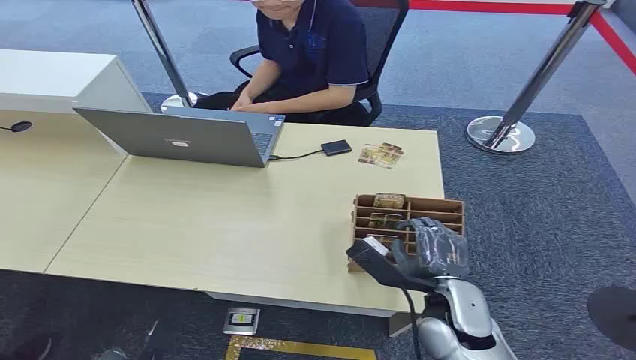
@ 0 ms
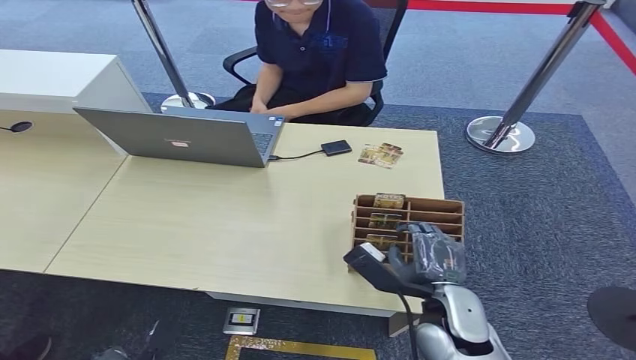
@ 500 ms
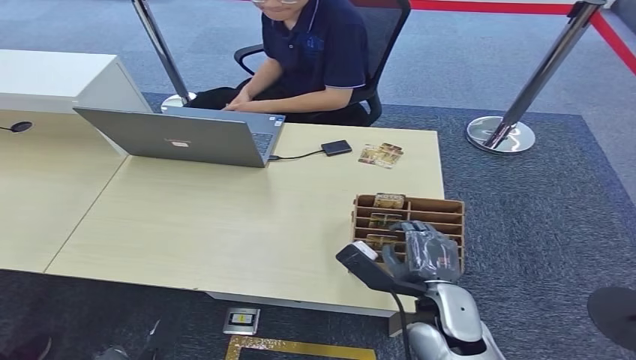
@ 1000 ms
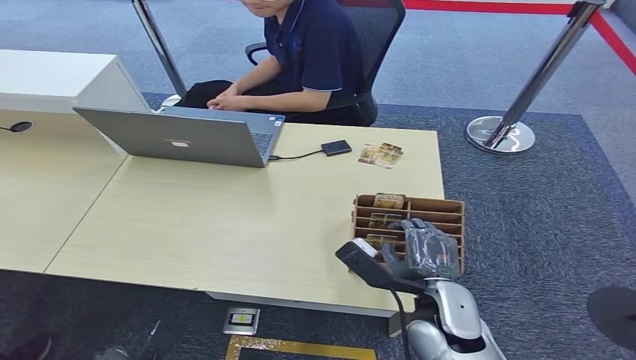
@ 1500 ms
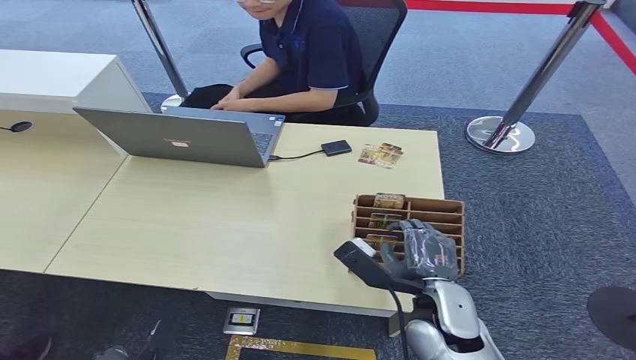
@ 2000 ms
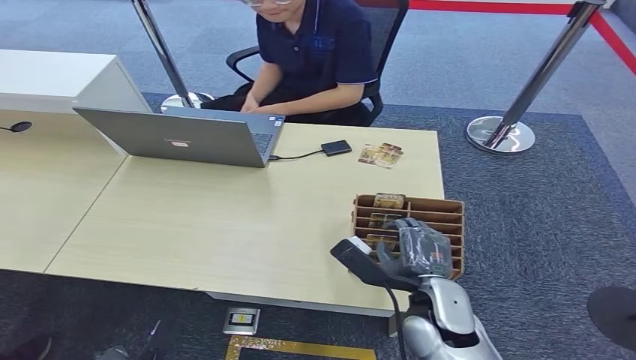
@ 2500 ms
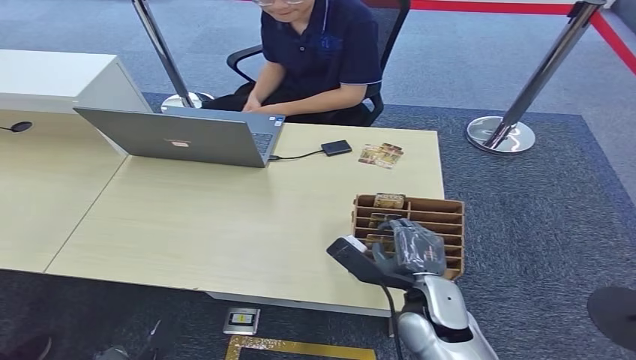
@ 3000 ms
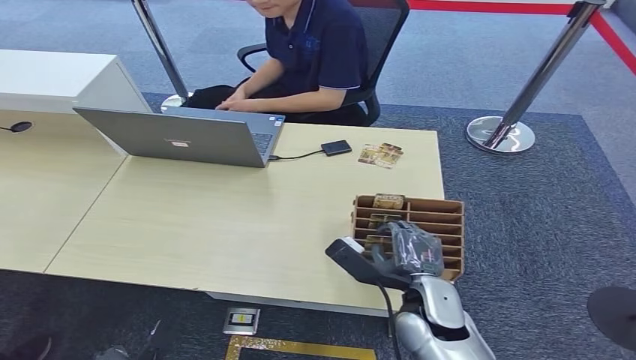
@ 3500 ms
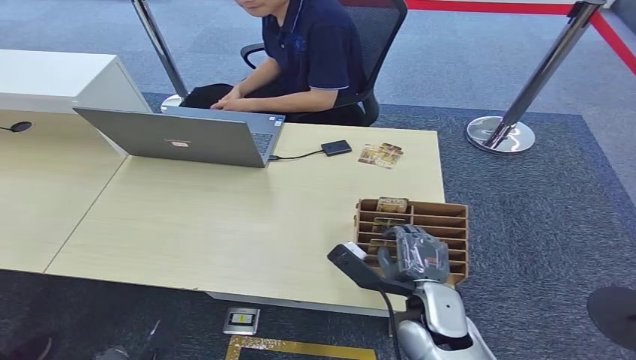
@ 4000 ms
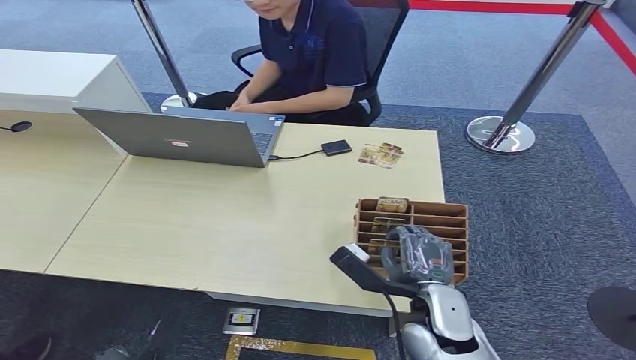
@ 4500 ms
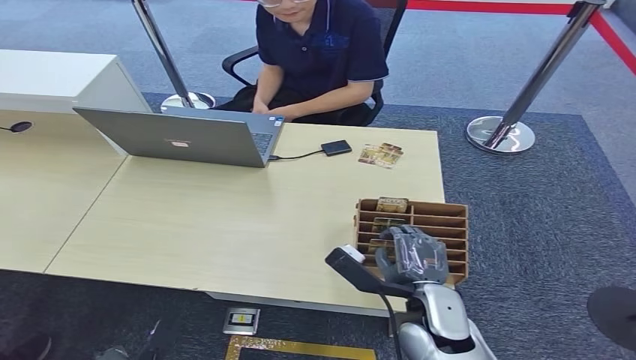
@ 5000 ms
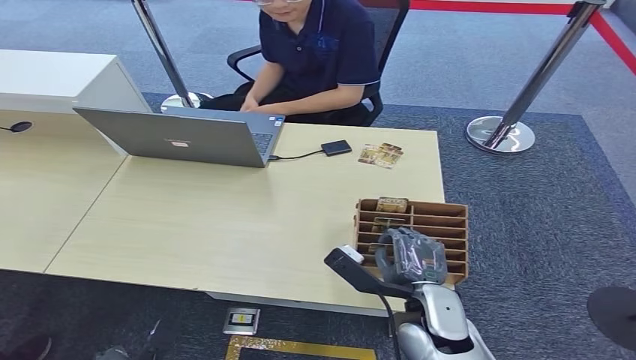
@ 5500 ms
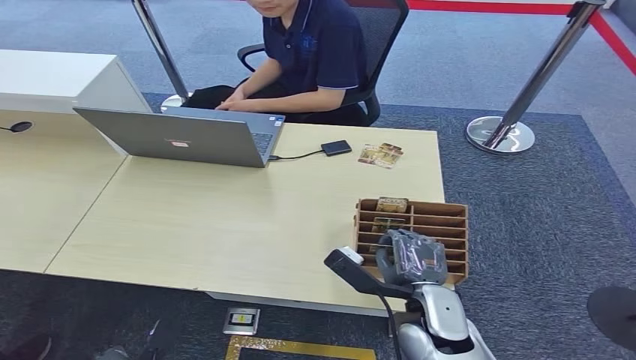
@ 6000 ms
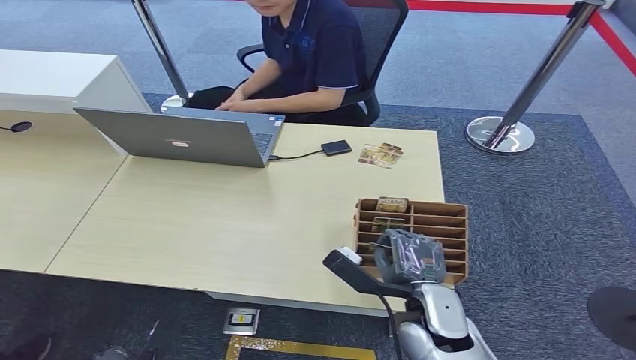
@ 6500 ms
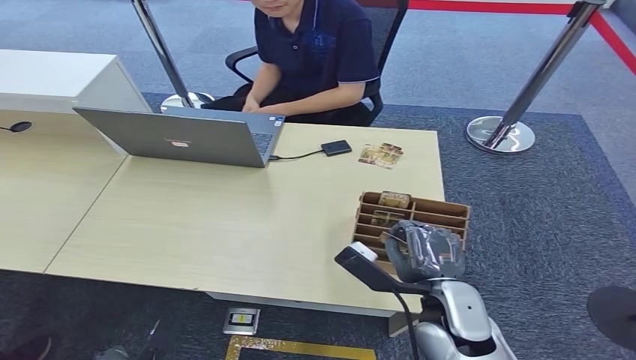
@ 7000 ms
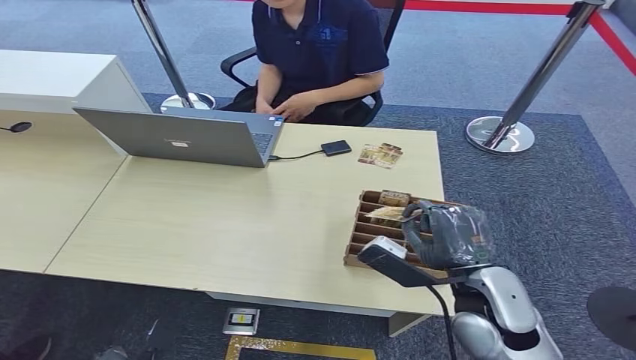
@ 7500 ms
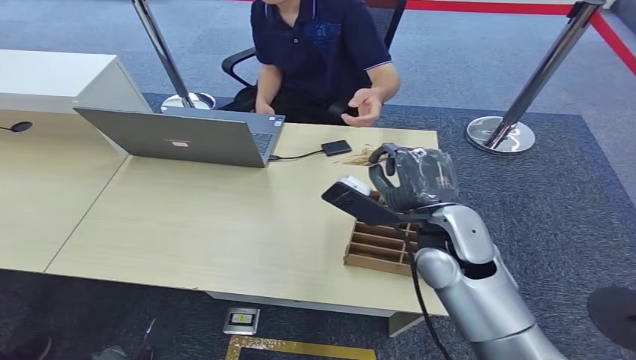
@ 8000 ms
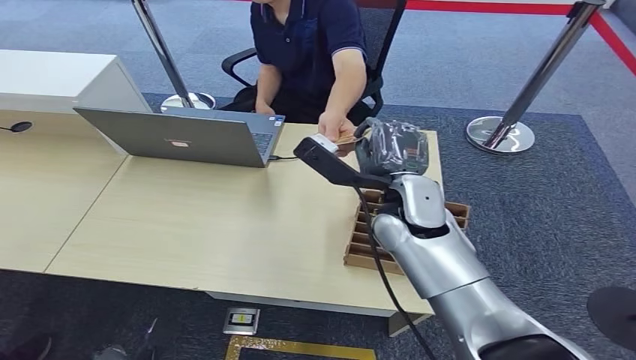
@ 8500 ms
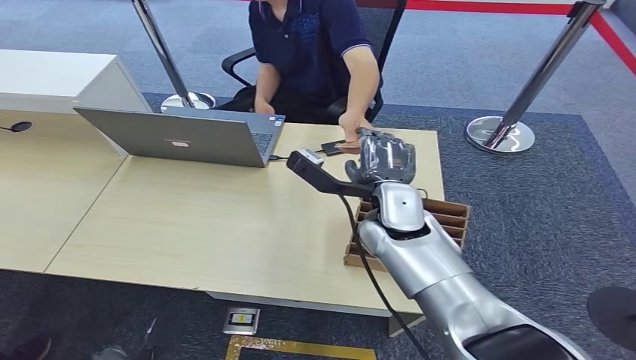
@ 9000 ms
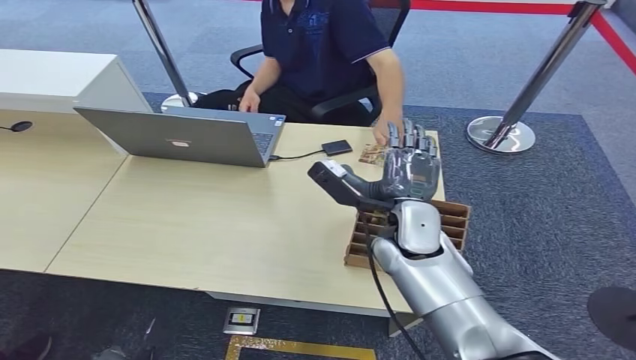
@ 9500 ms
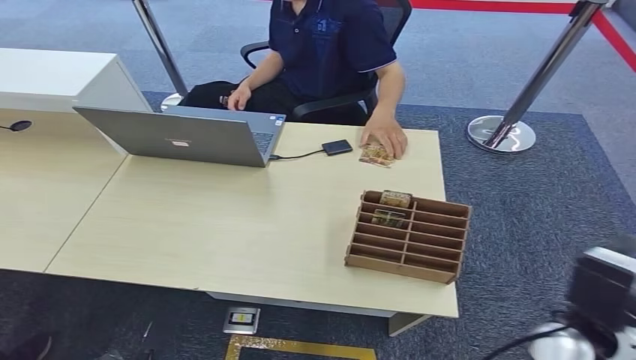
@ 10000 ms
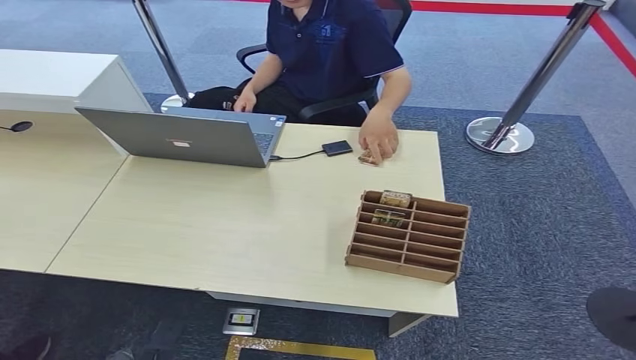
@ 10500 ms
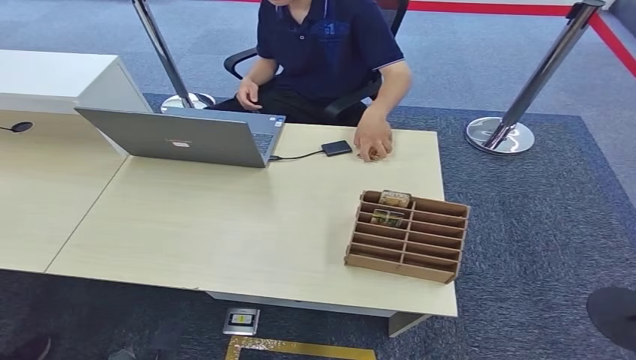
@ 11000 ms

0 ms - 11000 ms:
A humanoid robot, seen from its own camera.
Step, 0 ms - 6500 ms: Pick up the room card from the card holder.
Step, 7000 ms - 11000 ms: Hand the room card to the target.
2000 ms - 5500 ms: The hands move only a little.
5500 ms - 7500 ms: The right hand travels upward and to the right by approximately 10 cm.
7500 ms - 9000 ms: The right hand moves forward and to the left, about 15 cm.
9000 ms - 11000 ms: The right hand shifts approximately 50 cm backward, downward and to the right.

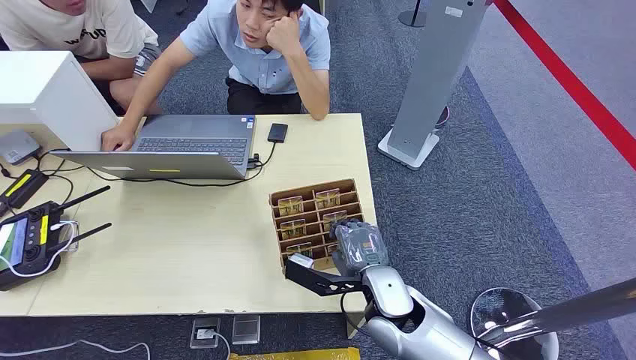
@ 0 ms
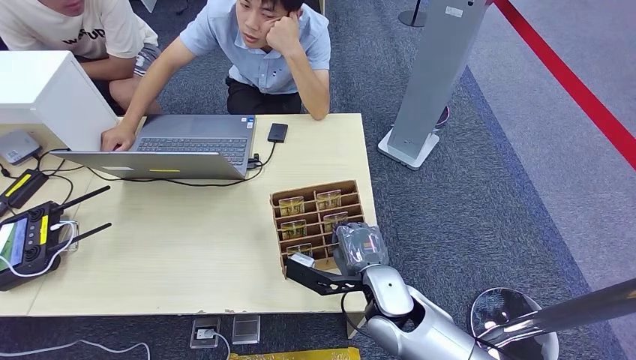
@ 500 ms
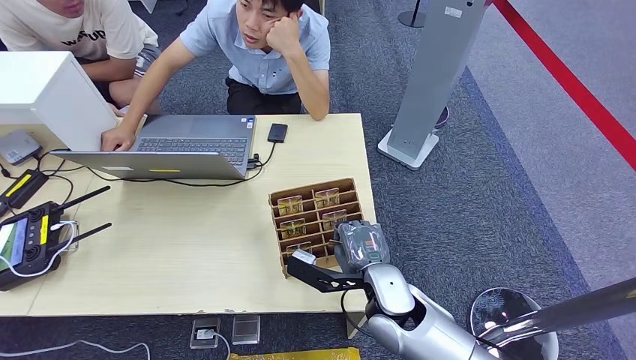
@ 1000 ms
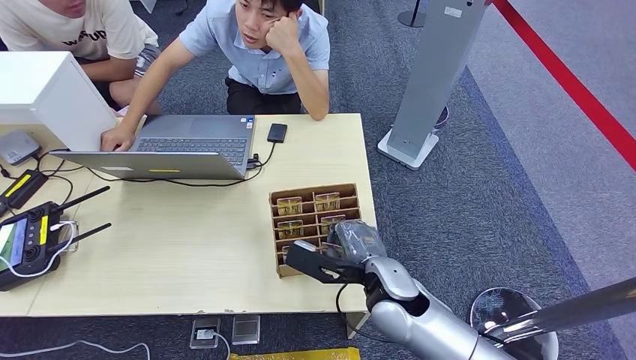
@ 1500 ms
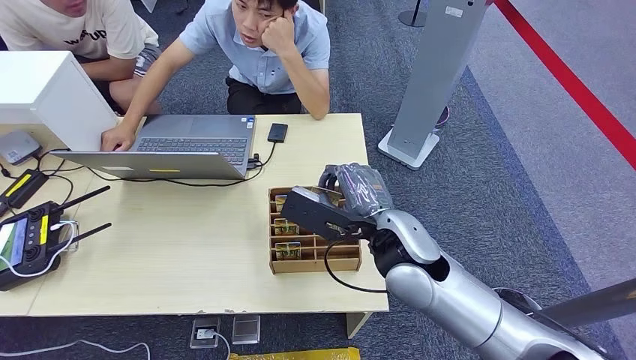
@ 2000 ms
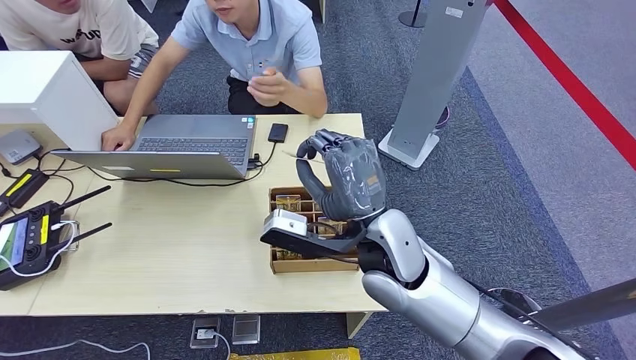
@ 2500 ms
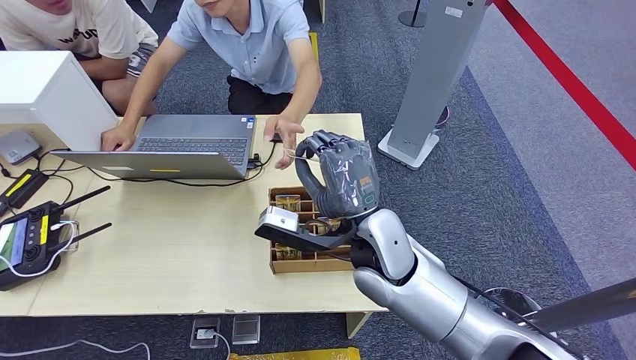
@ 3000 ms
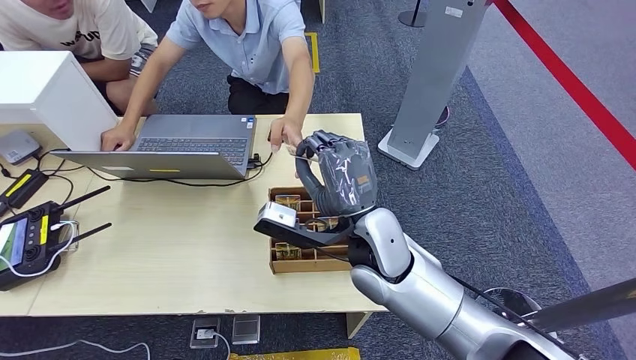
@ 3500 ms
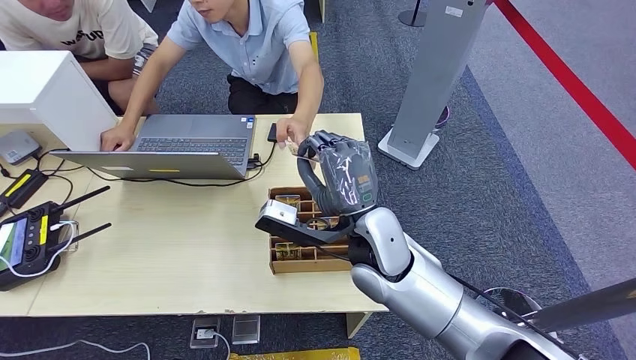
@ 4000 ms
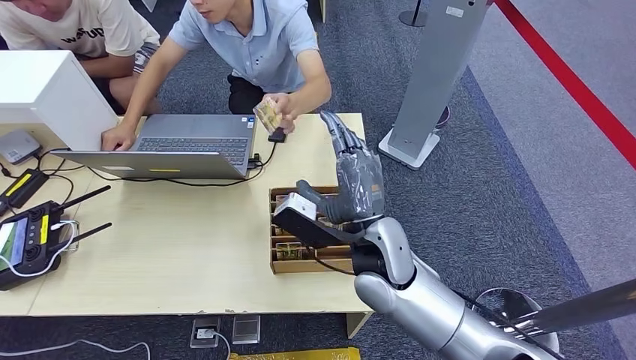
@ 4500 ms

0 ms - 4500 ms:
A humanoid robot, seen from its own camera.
Step, 0 ms - 2000 ms: Pick up the room card from the card holder.
Step, 2500 ms - 4500 ms: Hand the room card to the target.
